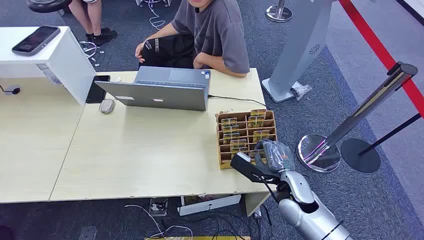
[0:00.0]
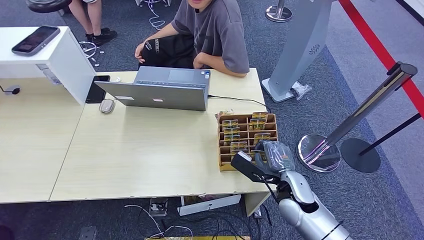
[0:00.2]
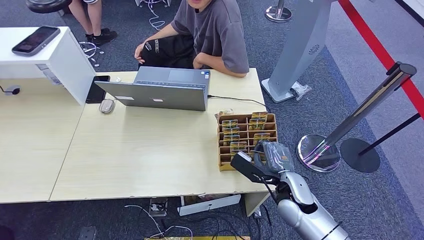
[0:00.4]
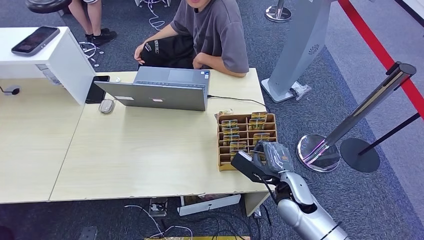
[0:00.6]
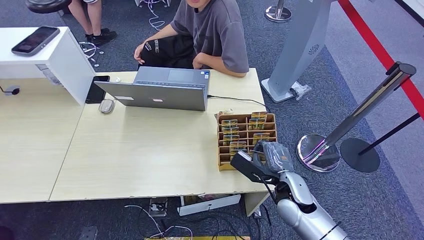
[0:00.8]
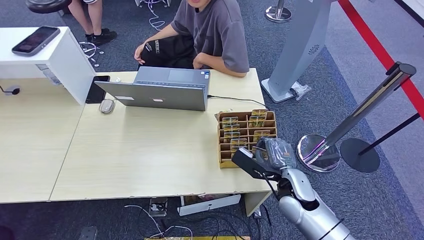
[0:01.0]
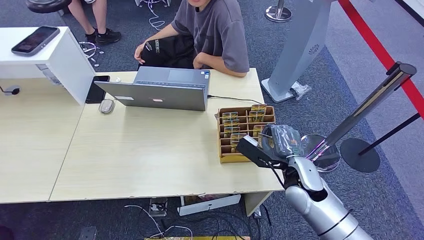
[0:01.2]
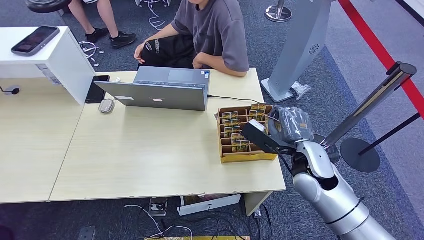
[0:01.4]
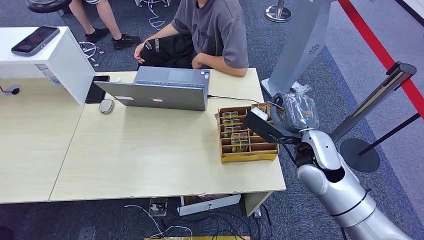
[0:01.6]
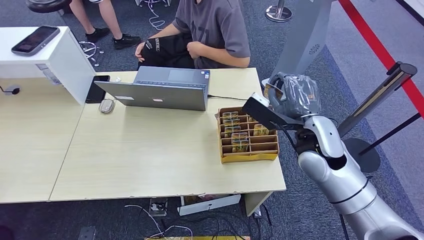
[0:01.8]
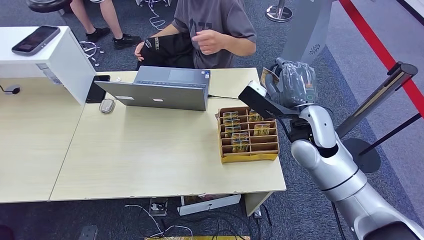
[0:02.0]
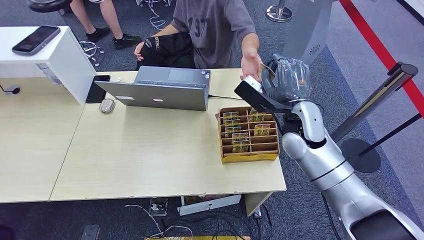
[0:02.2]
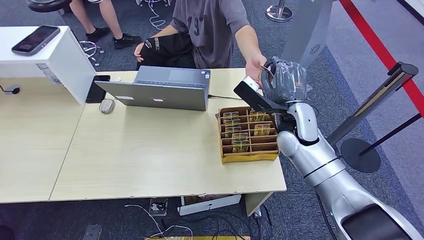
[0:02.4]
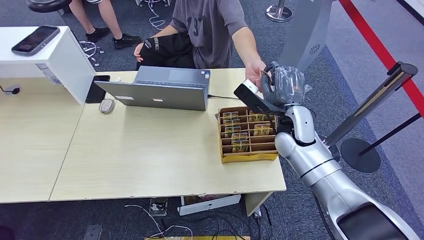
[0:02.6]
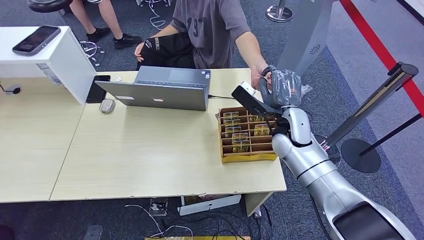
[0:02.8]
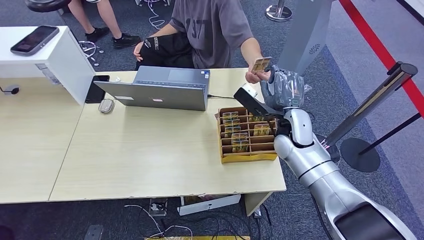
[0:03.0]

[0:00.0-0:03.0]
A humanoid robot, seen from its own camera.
Step, 0:00.0 to 0:01.4: Pick up the key card from the card box.
Step, 0:01.8 to 0:03.0: Hand the key card to the target.
0:01.6 to 0:03.0: The right hand travels forward by roughly 10 cm.

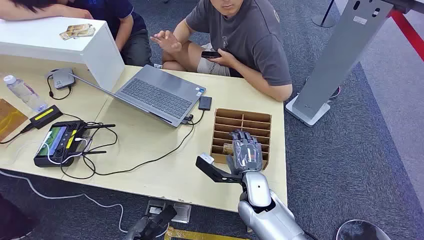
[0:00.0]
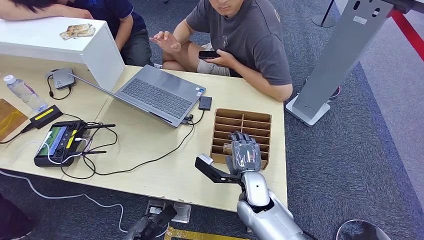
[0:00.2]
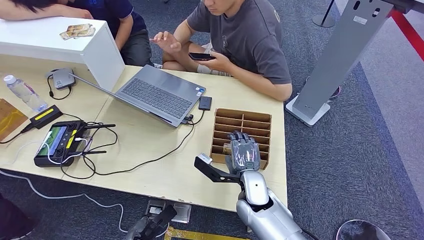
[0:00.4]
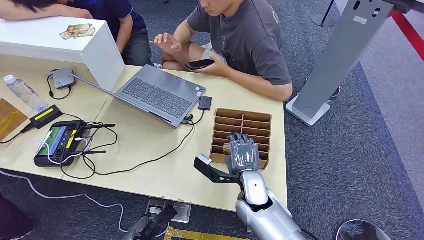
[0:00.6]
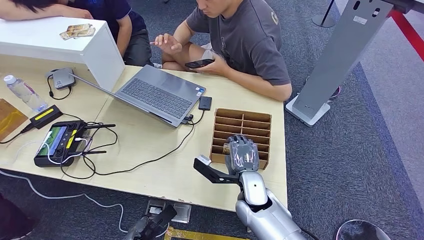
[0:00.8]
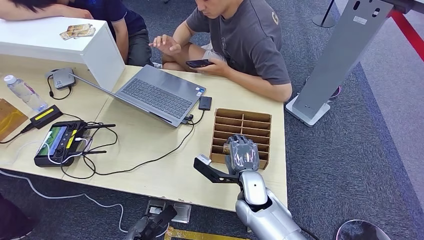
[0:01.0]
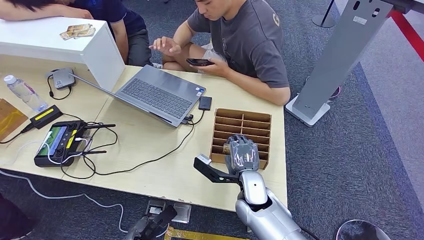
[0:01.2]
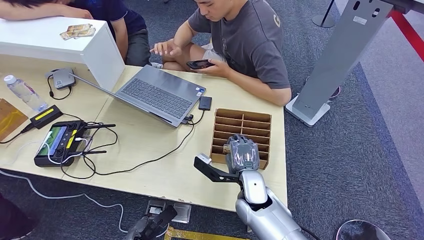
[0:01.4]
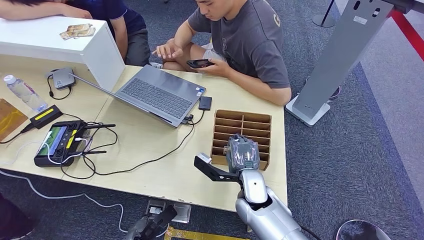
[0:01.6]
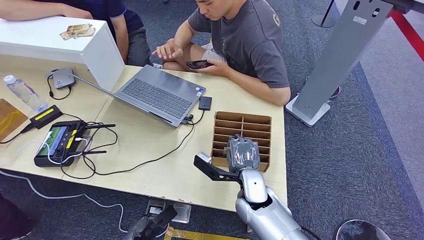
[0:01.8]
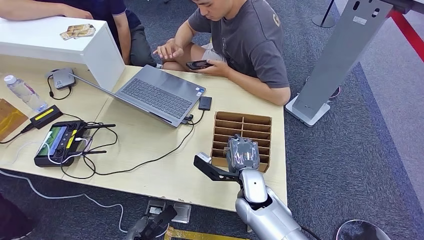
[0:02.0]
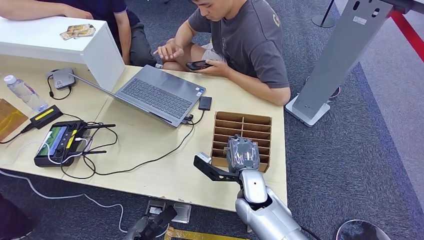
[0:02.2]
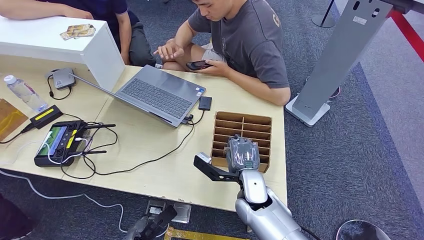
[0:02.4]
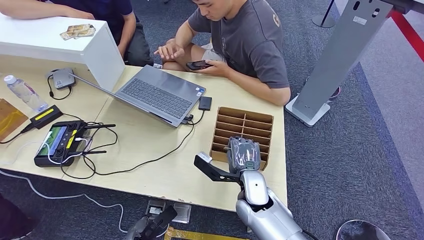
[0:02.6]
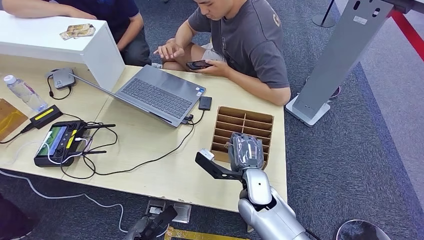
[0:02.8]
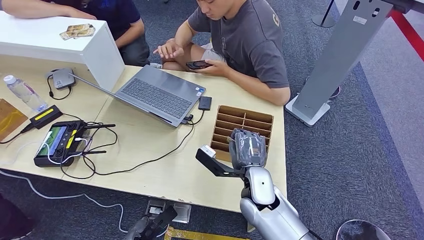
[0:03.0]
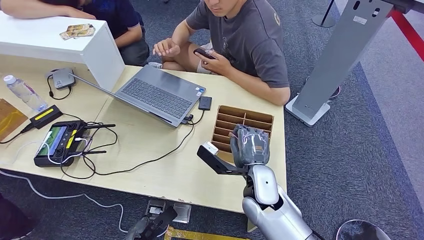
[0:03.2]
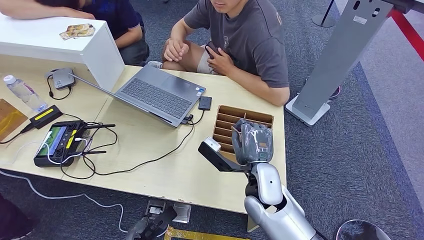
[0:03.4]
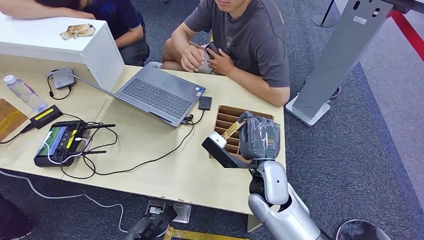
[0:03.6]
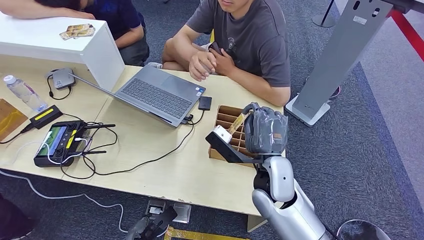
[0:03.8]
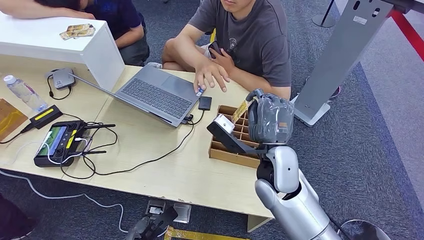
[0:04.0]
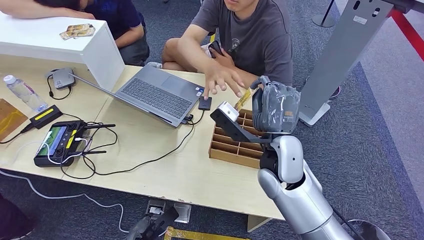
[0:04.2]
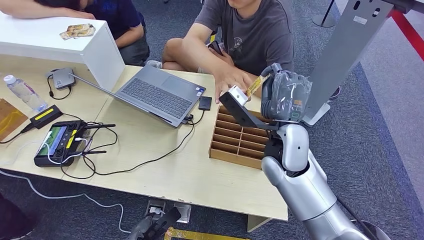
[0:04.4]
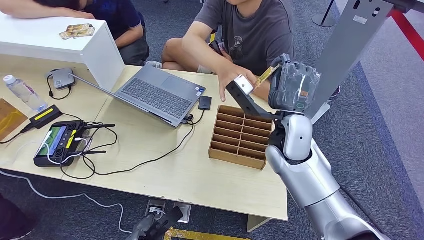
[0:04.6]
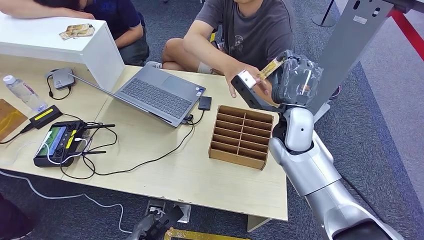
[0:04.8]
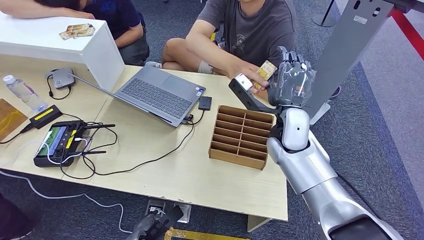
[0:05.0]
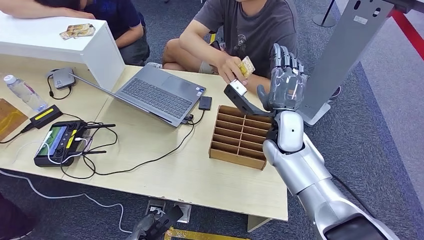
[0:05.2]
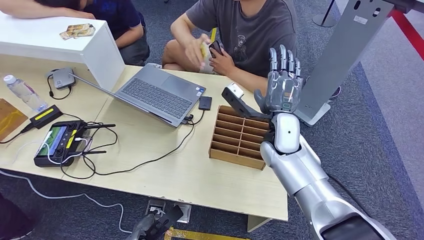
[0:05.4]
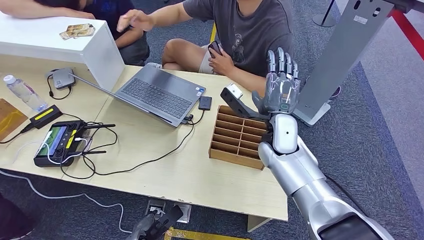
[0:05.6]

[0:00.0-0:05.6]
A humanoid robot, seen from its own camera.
Step, 0:00.0 to 0:03.4: Pick up the key card from the card box.
Step, 0:03.8 to 0:05.6: Hand the key card to the target.
0:01.4 to 0:02.8: The hands move only a little.
0:02.8 to 0:04.2: The right hand heads upward, covering about 15 cm.
0:04.2 to 0:05.6: The right hand shifts some 10 cm forward.
